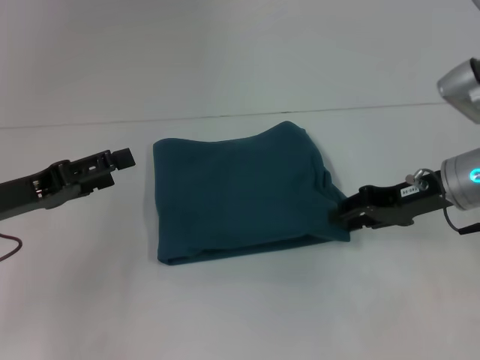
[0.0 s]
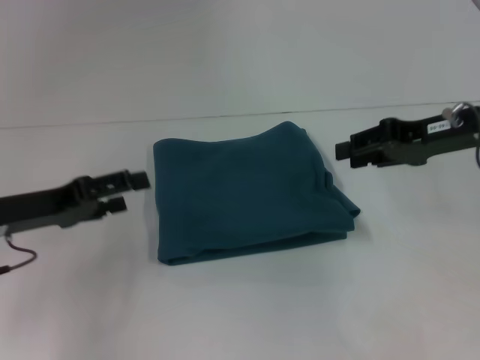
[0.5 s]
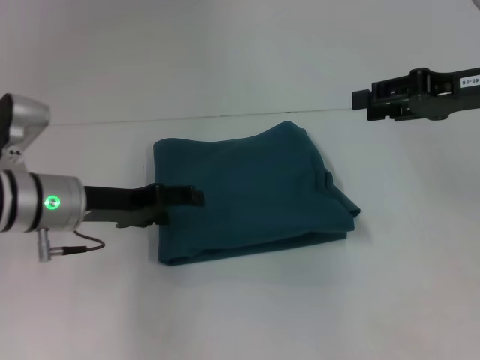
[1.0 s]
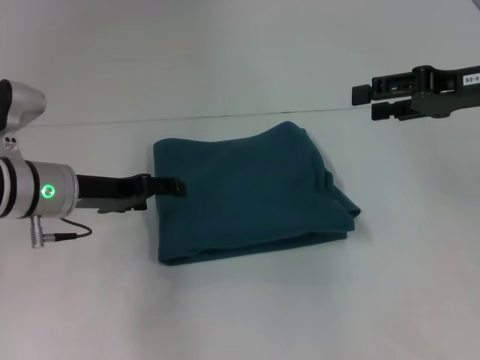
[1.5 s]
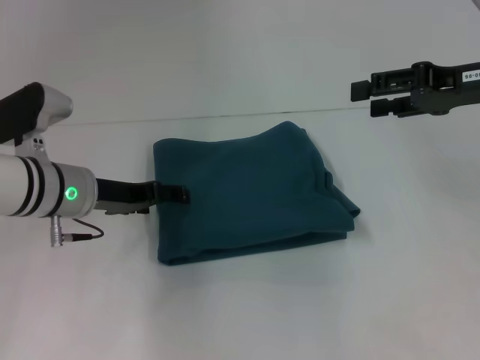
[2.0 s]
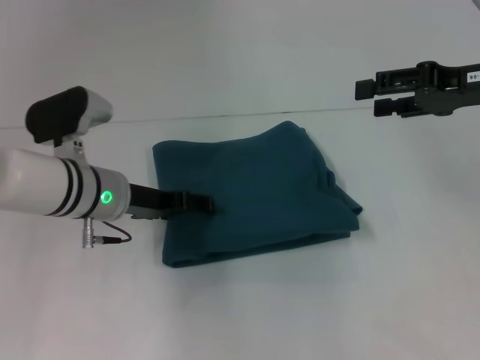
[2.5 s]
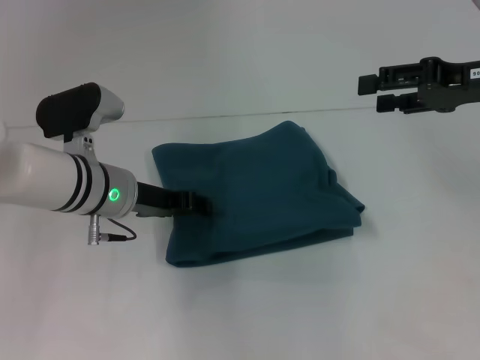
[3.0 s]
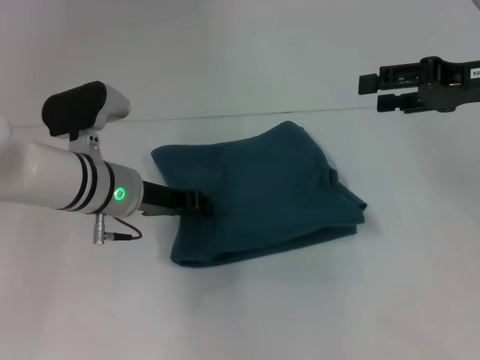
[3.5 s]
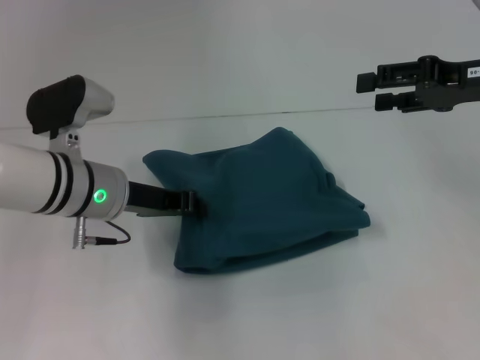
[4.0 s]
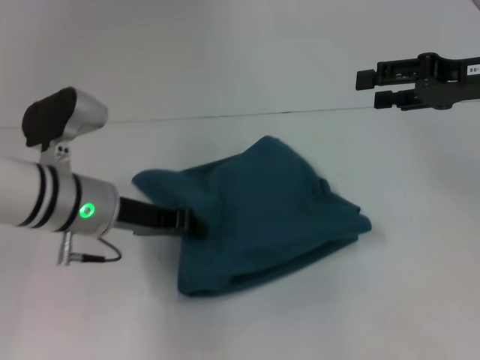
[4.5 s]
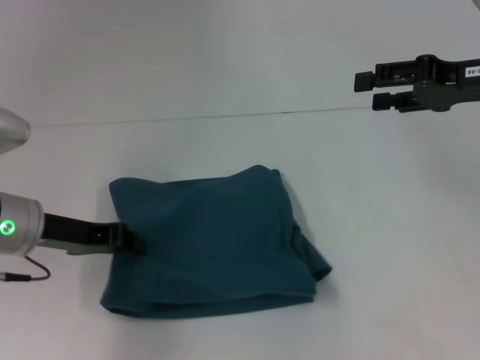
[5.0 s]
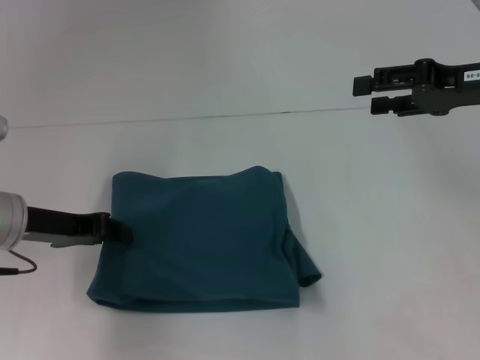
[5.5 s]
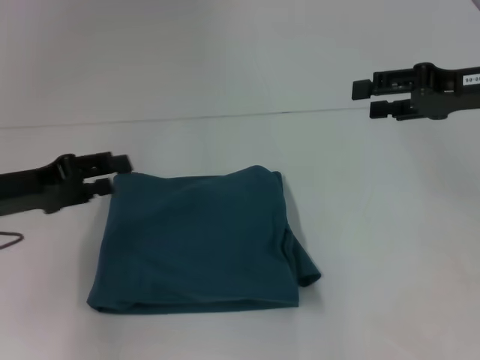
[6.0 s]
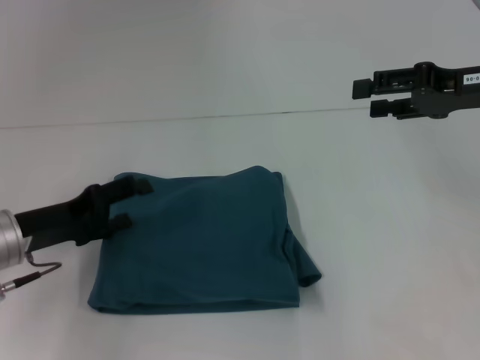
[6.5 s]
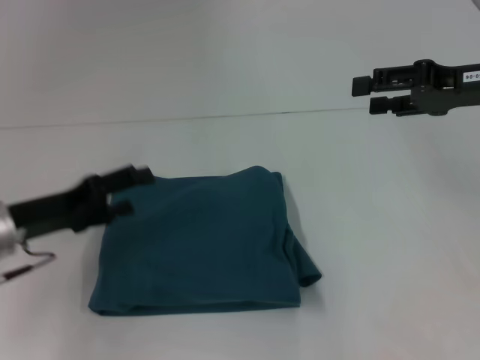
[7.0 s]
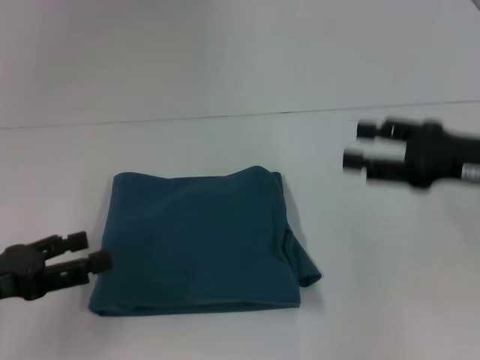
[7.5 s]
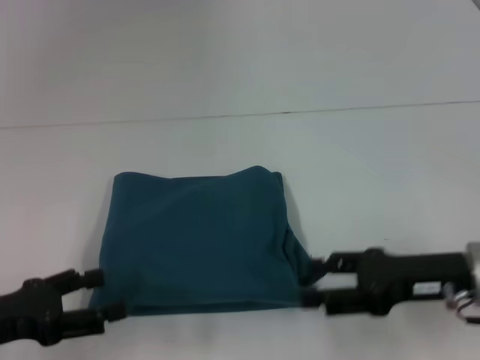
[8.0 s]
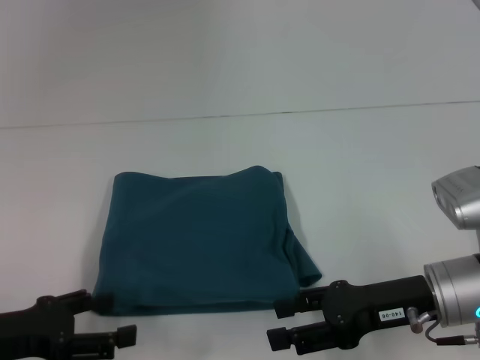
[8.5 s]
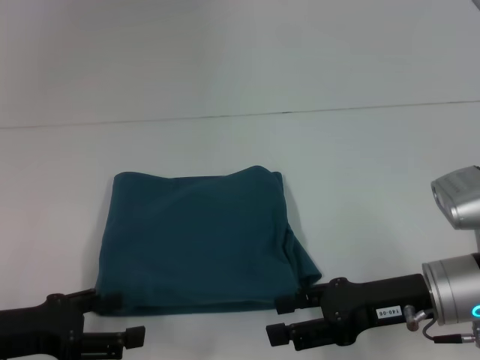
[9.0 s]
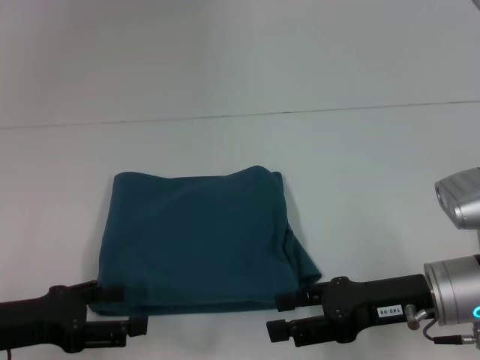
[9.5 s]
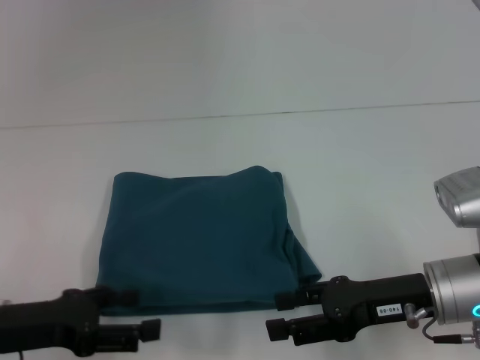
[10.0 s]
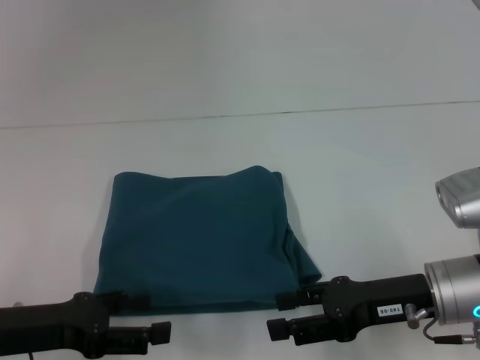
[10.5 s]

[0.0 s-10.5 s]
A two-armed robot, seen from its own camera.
0.0 to 2.0 s: The left gripper heads to the right and forward, covering roughly 10 cm. The right gripper is displaced upward by roughly 10 cm, and opens its fingers.
2.0 to 4.0 s: The left gripper closes up.
4.0 to 6.5 s: The left gripper travels to the left and backward by some 10 cm, and opens its fingers.
6.5 to 8.5 s: The left gripper heads backward, covering about 10 cm. Meanwhile the right gripper travels downward, backward and to the left by about 20 cm.
8.5 to 10.5 s: The grippers move only a little.

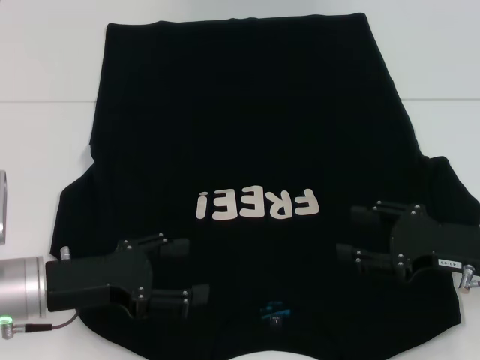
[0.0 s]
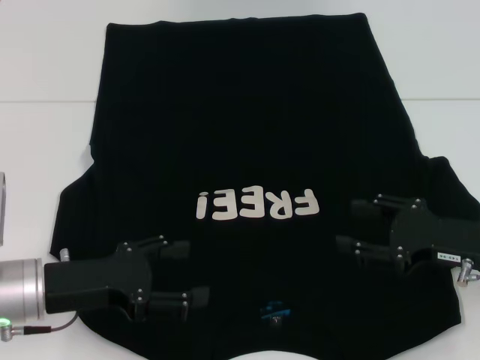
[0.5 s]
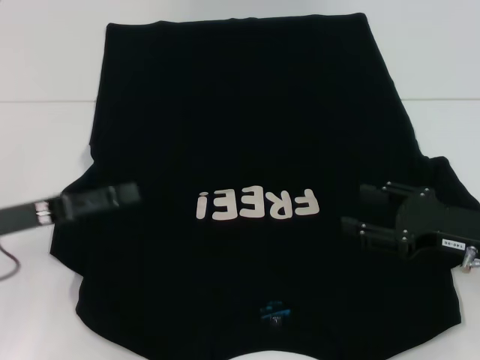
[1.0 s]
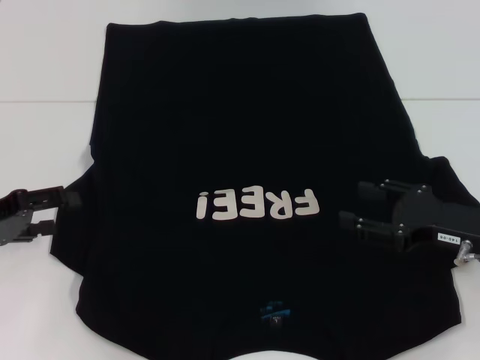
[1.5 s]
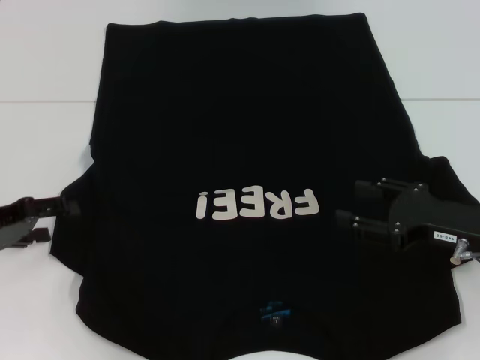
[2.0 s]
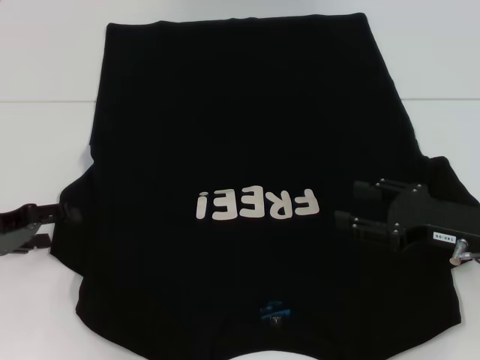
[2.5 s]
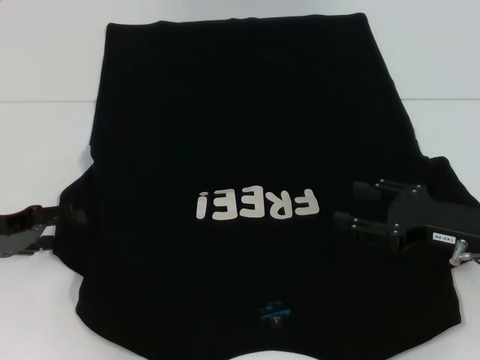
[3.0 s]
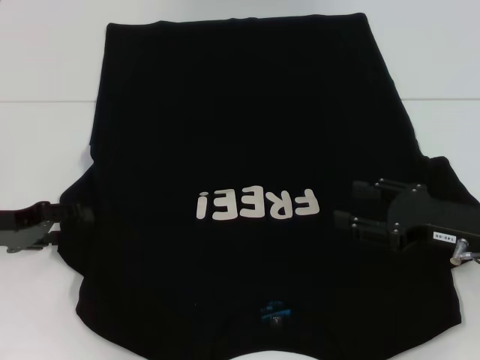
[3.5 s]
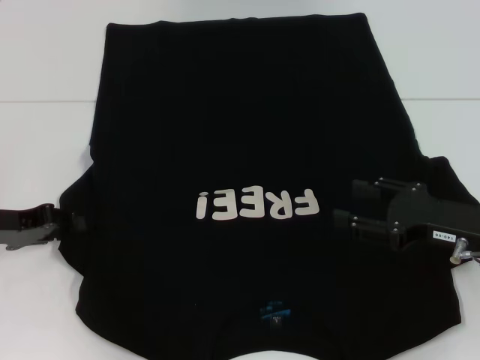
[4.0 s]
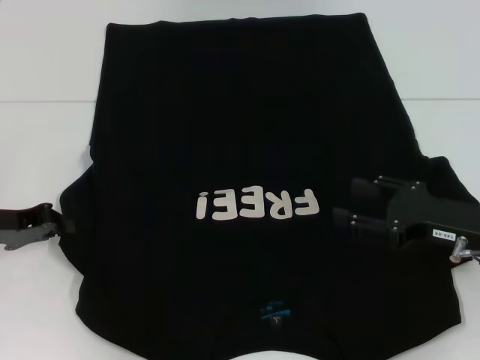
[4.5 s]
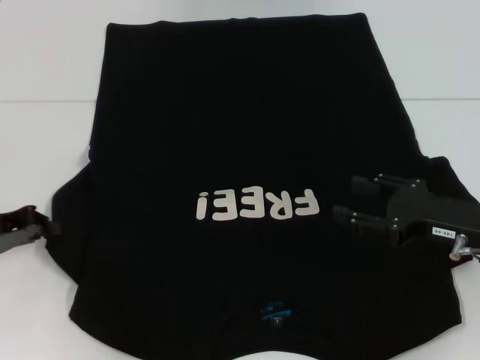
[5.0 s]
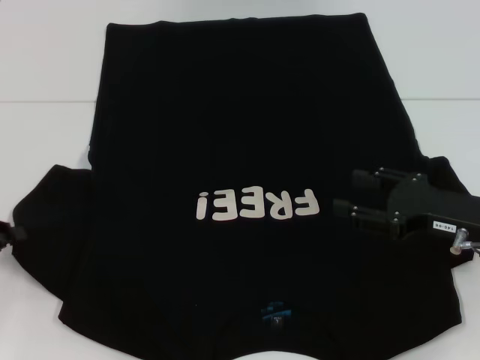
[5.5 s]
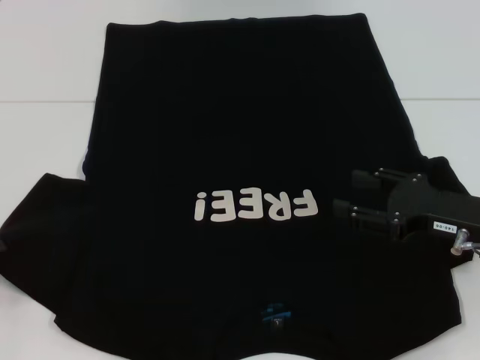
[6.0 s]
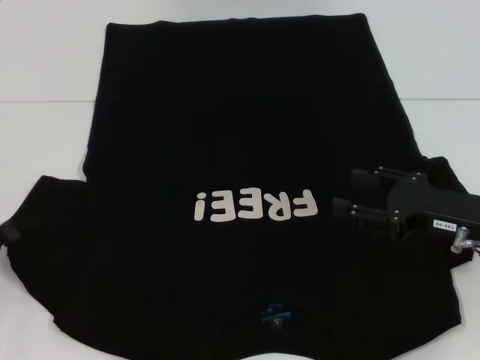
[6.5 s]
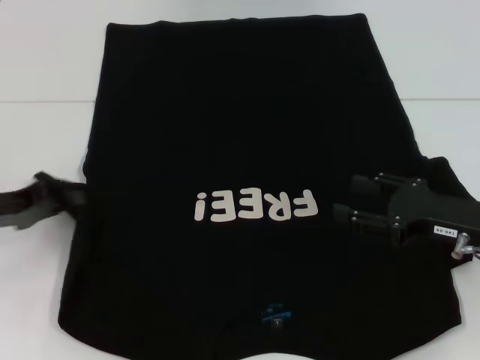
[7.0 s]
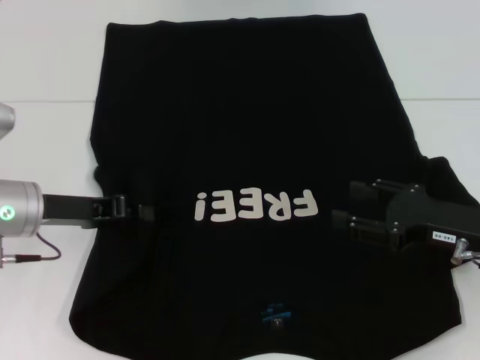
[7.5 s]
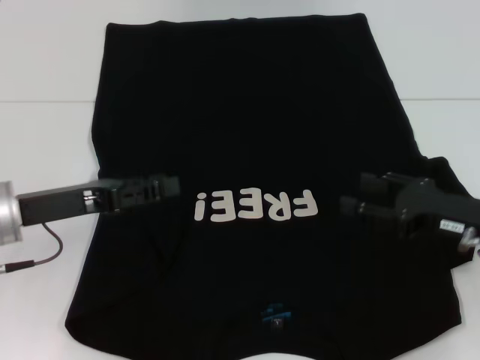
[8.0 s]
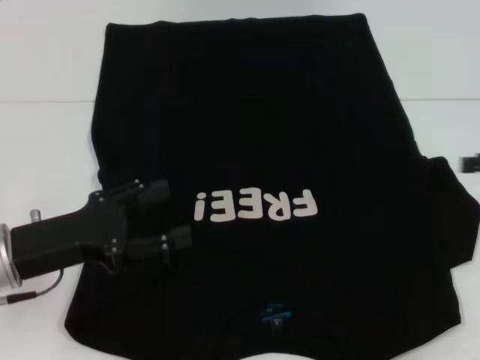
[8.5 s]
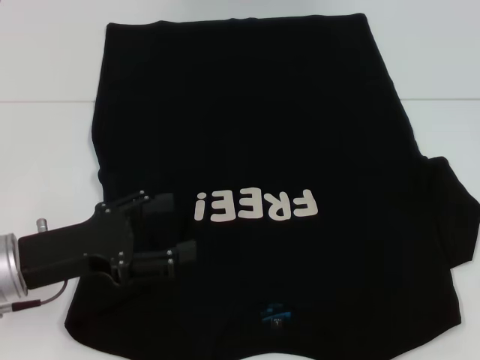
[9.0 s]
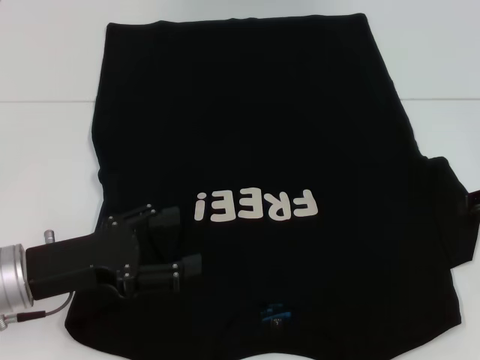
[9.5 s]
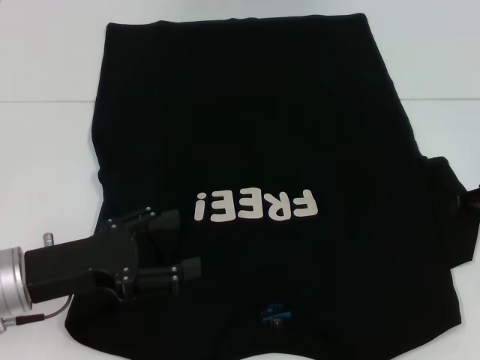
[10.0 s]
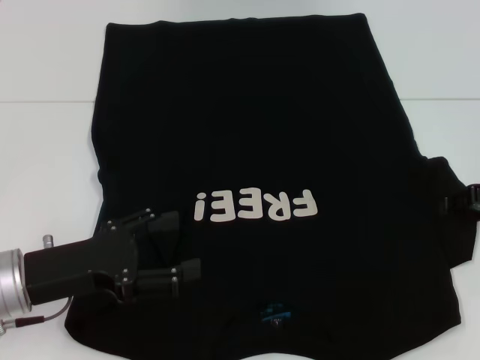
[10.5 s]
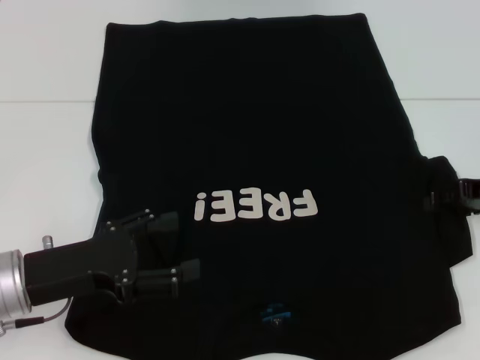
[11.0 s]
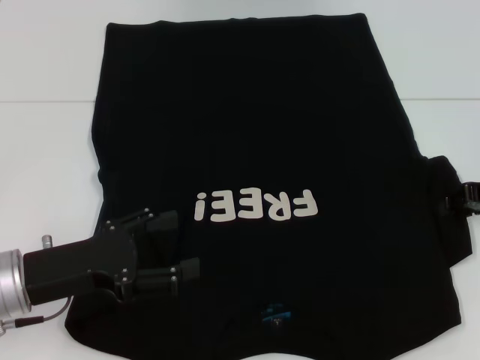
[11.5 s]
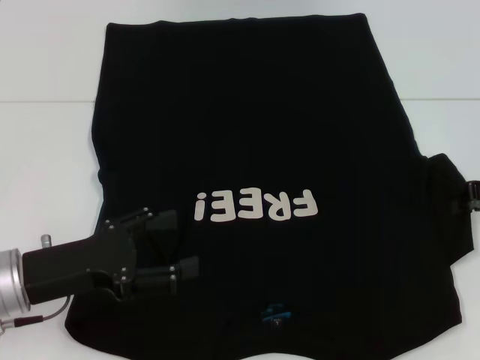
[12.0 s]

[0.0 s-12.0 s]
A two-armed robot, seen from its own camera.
Step, 0.0 to 7.5 s: Fold the bottom left sleeve with your left hand.
0.0 to 2.0 s: The left gripper shifts some 10 cm to the left and forward.
2.0 to 4.0 s: The grippers move only a little.
4.0 to 6.0 s: The left gripper moves backward and to the left, some 10 cm, and closes its fingers.
6.0 to 8.0 s: The left gripper is displaced to the right and forward by about 15 cm.
8.0 to 10.0 s: The right gripper goes roughly 10 cm forward and to the right; the left gripper is displaced backward by roughly 5 cm, and opens.
10.0 to 12.0 s: The right gripper closes.

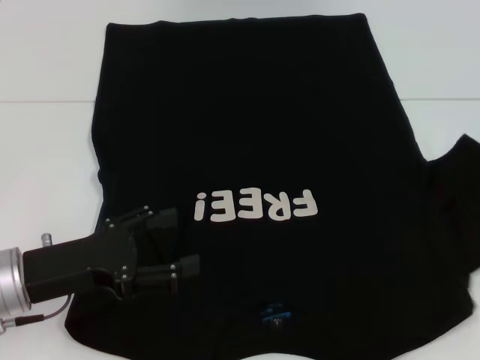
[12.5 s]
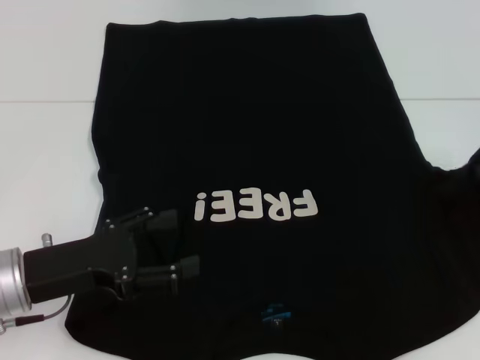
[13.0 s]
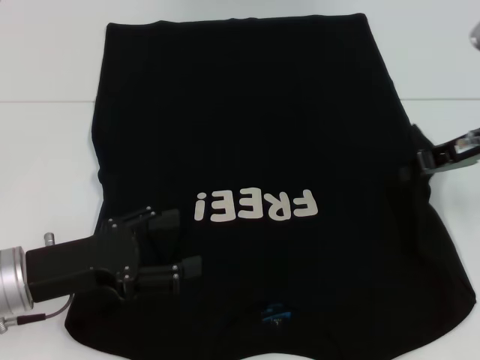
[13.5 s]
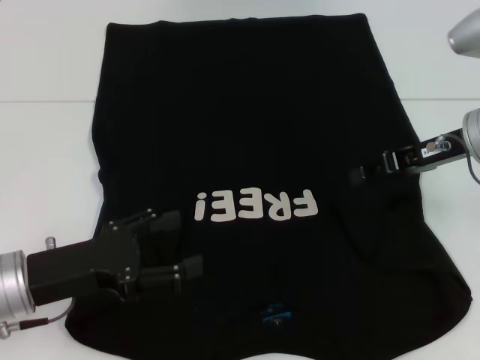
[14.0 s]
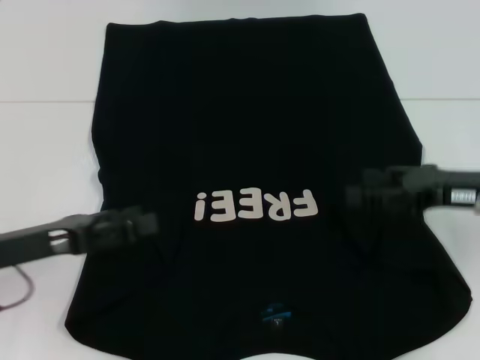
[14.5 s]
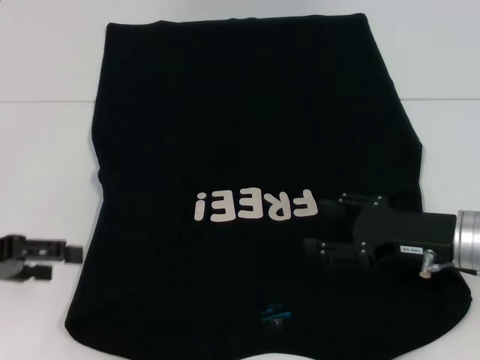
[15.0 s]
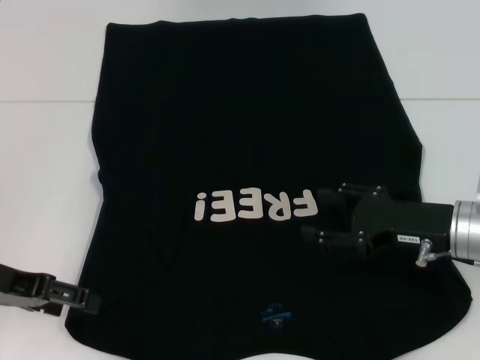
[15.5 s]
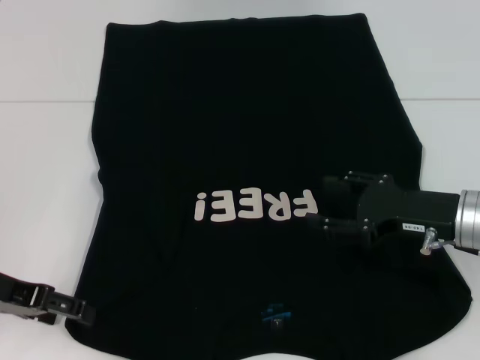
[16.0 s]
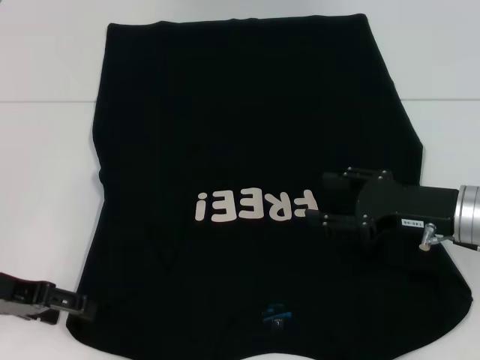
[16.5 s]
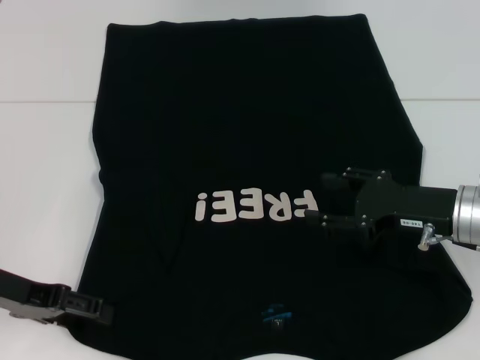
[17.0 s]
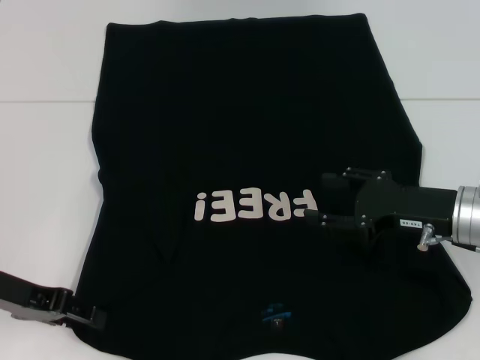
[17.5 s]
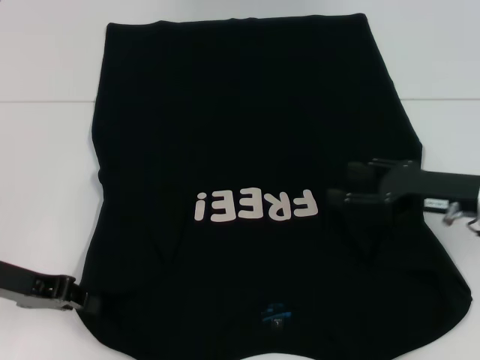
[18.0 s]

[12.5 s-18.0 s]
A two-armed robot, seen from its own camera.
12.5 to 14.5 s: The right gripper moves to the left, about 10 cm, and opens.
14.5 to 16.0 s: The right gripper changes place by about 5 cm.
16.0 to 18.0 s: The left gripper closes up.
